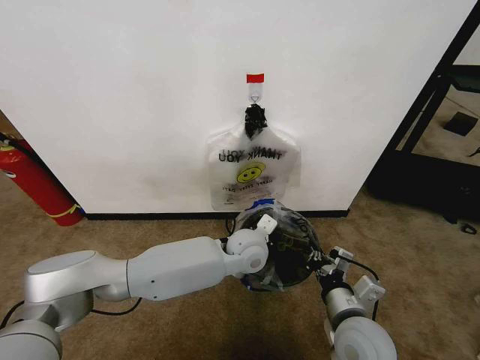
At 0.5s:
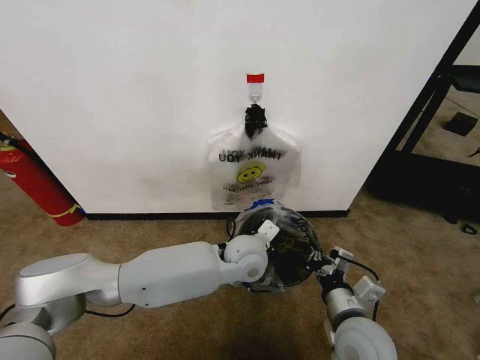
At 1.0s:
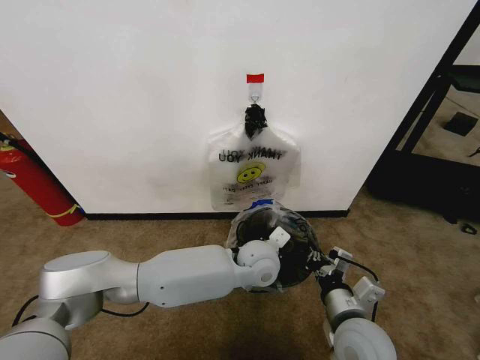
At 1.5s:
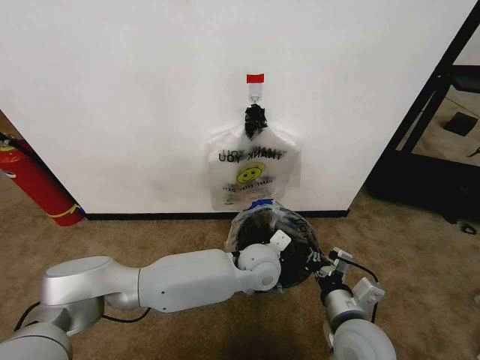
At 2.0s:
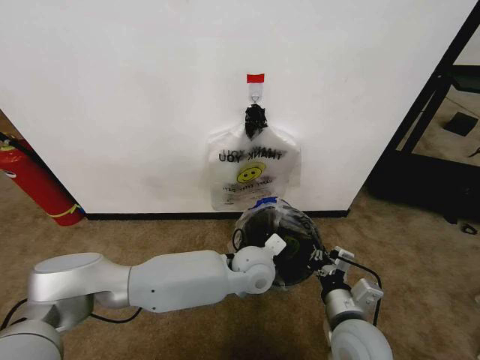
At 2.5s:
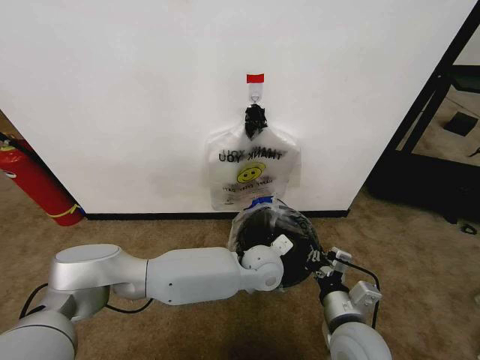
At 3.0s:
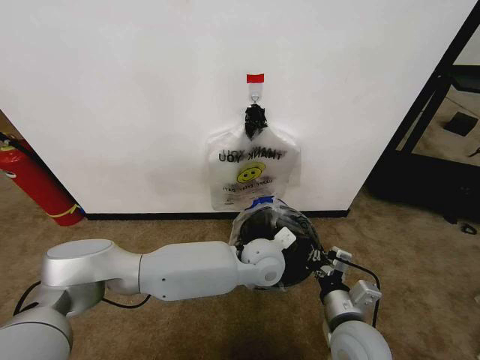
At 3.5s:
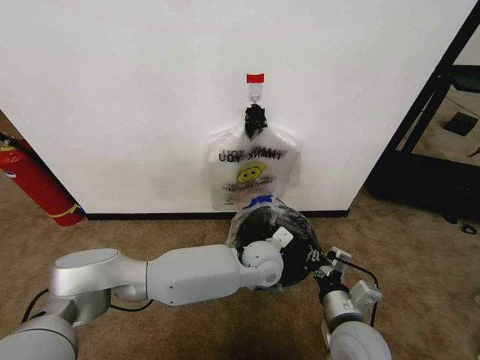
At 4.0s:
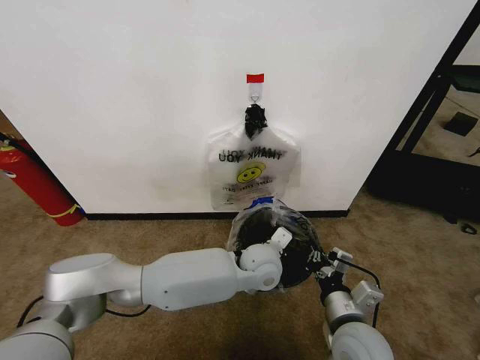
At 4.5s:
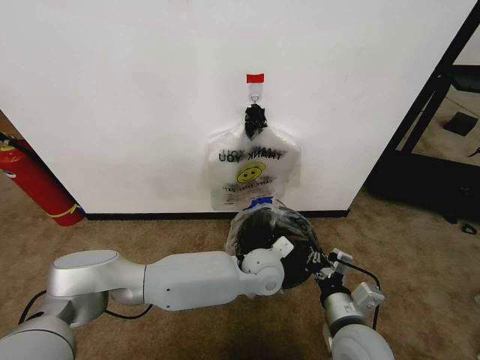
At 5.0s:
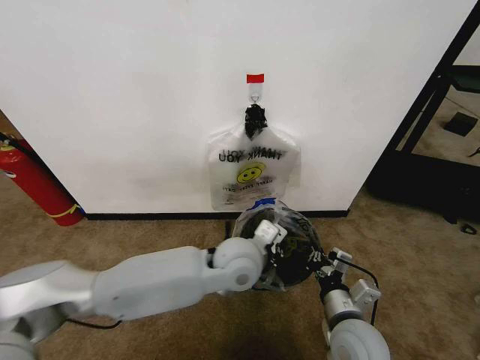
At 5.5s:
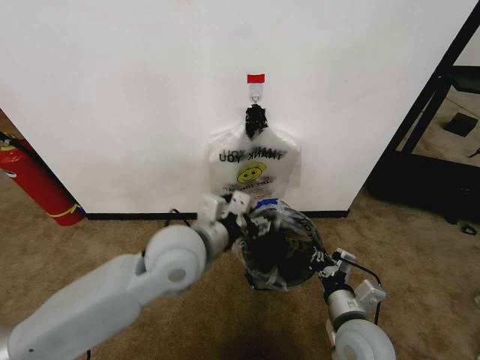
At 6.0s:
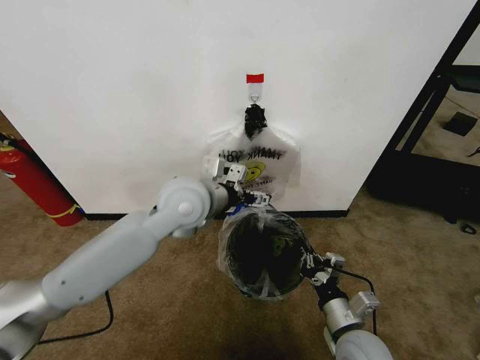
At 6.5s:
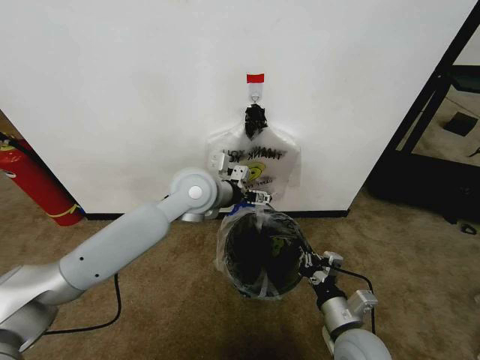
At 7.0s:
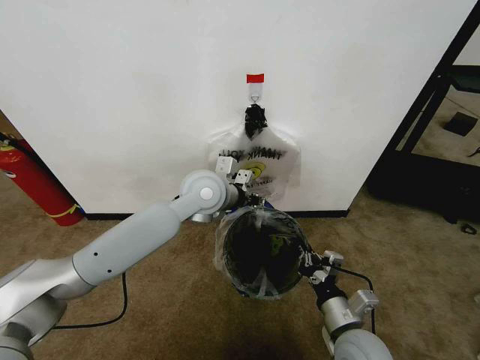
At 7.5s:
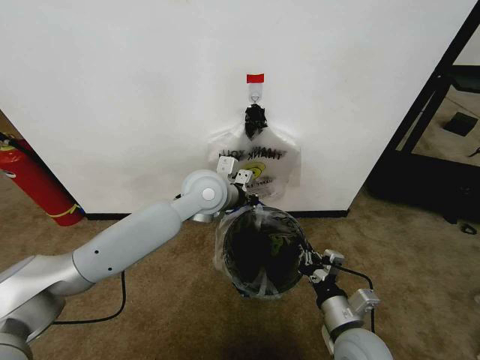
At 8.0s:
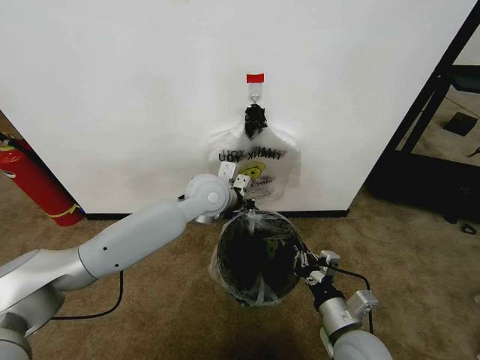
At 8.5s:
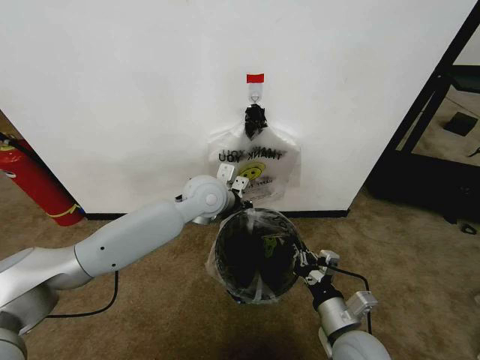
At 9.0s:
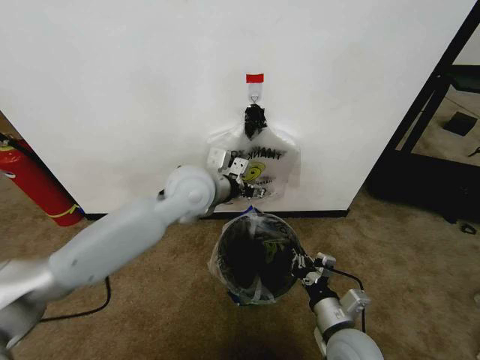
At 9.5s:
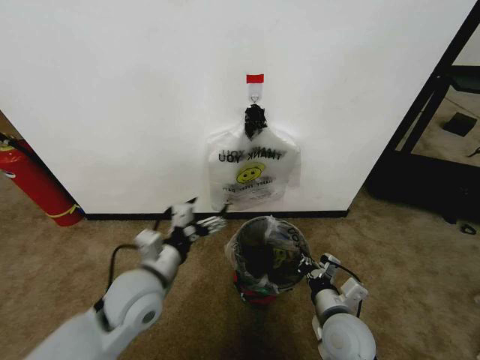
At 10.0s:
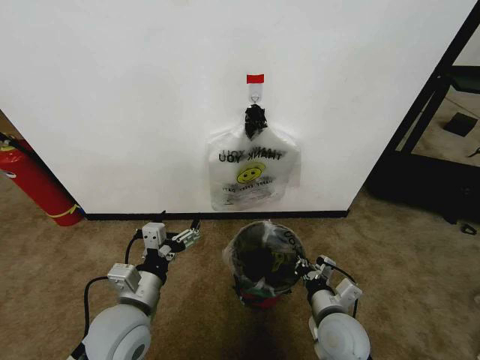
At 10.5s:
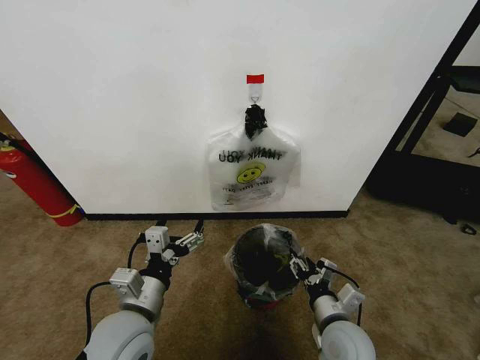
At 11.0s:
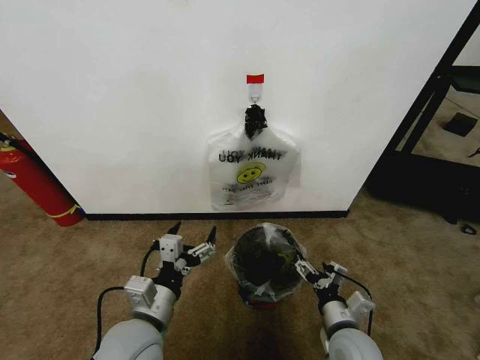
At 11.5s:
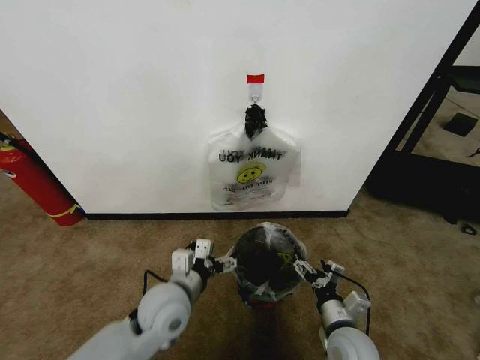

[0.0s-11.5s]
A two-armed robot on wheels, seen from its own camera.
Task of the whole recording: Pick up the garbage bag from the wall and place it over the trash bin.
0.0s to 4.0s: The grippers stay close to where they were, moving slightly.
4.0s to 6.0s: The left gripper heads upward and to the left, covering about 25 cm, and opens up.
6.0s to 7.5s: The left gripper shifts by about 5 cm, and closes up.
7.5s to 9.5s: The left gripper heads backward, to the left and downward, covering approximately 20 cm, and opens up.
9.5s to 11.5s: The right gripper opens its fingers, while the left gripper goes backward and returns, about 10 cm each way.

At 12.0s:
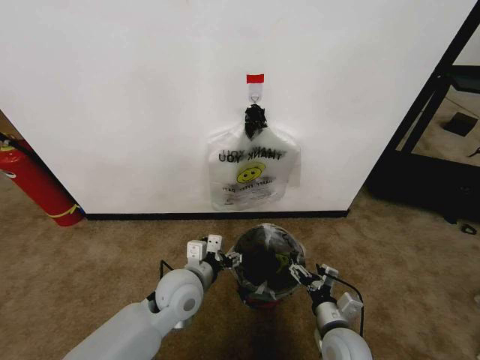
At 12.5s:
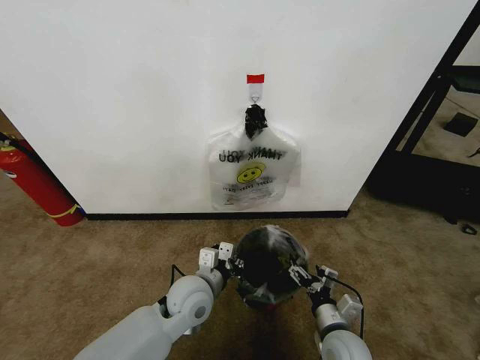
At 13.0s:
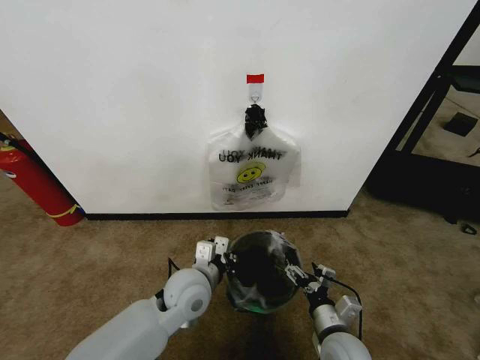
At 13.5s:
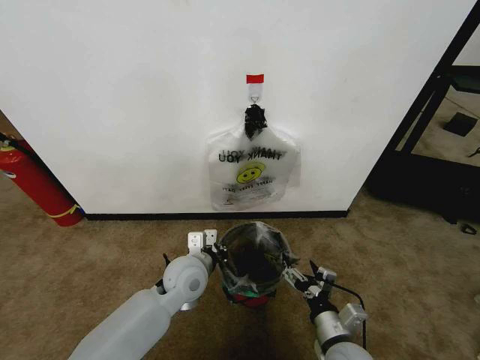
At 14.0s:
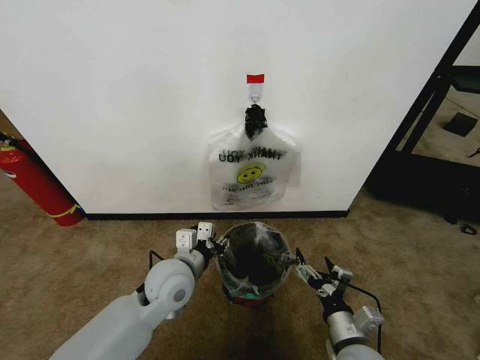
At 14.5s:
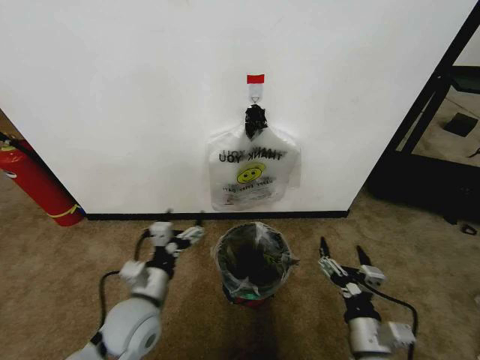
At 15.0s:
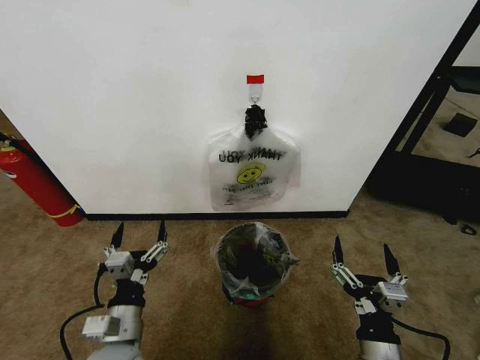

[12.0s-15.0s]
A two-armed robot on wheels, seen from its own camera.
Task of the whole recording: Pick up the garbage bag from the wall and place it over the trash bin.
12.0s to 13.5s: The left gripper closes.
13.5s to 15.0s: The right gripper moves backward and upward, some 10 cm, while the left gripper is displaced backward and to the left by about 20 cm, and opens its fingers.
